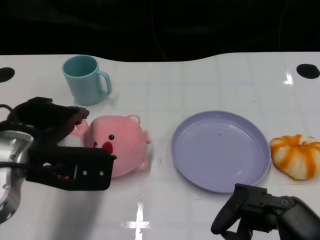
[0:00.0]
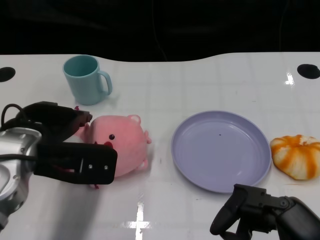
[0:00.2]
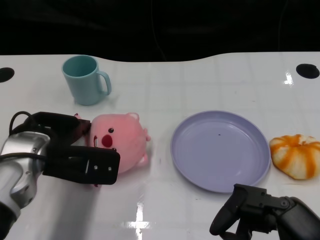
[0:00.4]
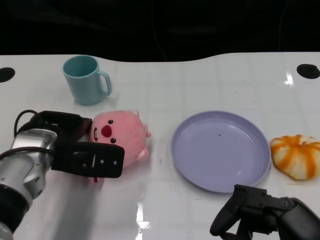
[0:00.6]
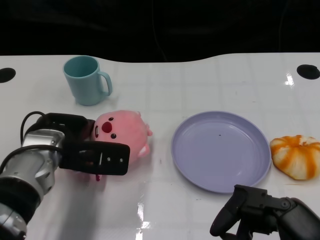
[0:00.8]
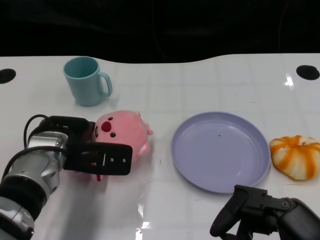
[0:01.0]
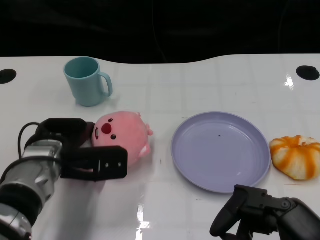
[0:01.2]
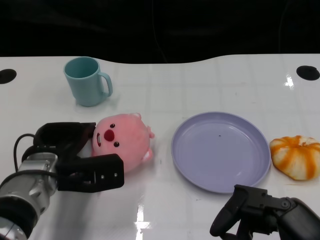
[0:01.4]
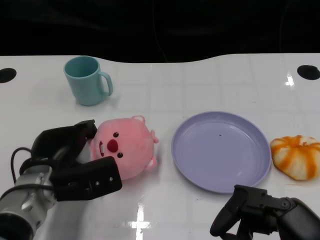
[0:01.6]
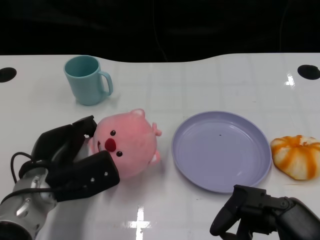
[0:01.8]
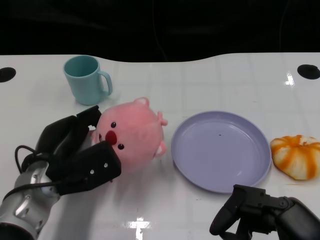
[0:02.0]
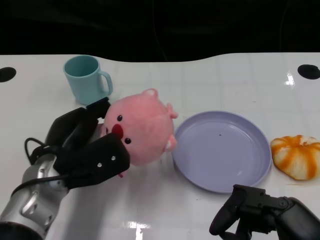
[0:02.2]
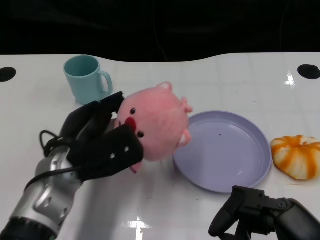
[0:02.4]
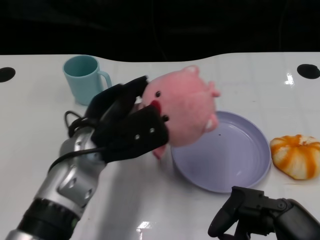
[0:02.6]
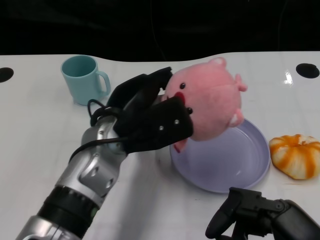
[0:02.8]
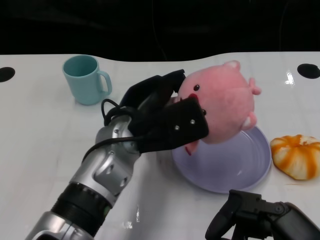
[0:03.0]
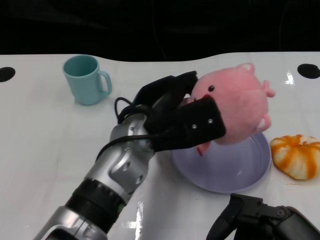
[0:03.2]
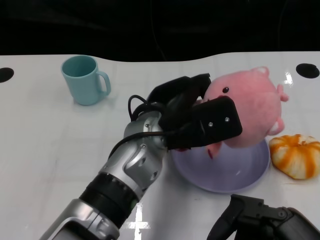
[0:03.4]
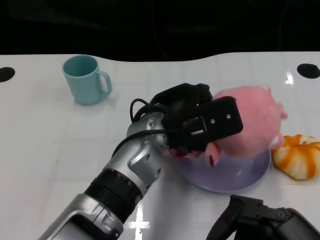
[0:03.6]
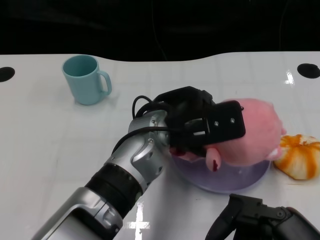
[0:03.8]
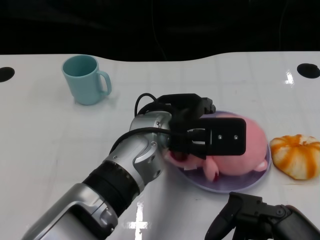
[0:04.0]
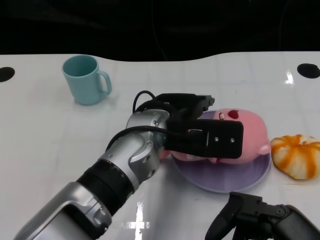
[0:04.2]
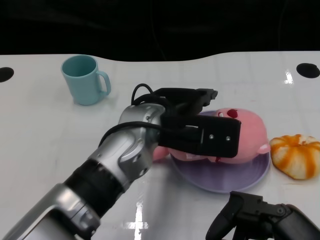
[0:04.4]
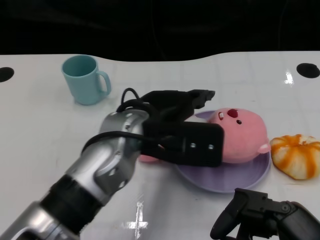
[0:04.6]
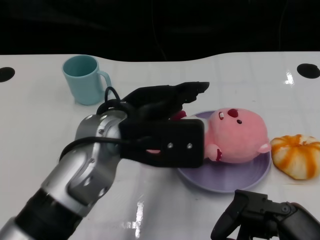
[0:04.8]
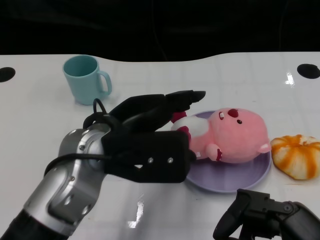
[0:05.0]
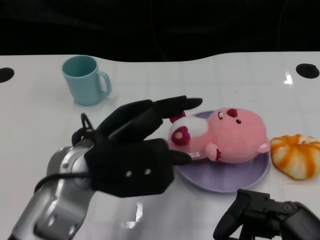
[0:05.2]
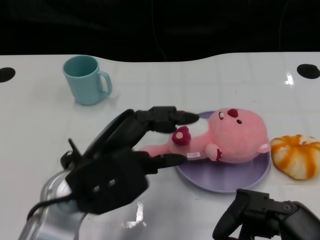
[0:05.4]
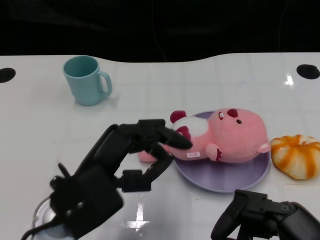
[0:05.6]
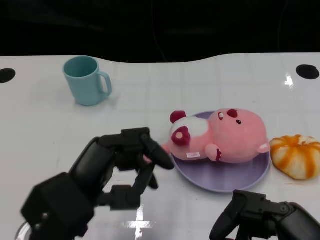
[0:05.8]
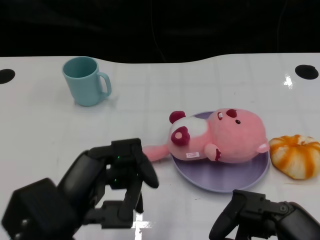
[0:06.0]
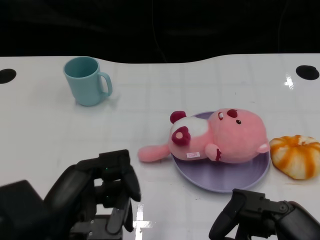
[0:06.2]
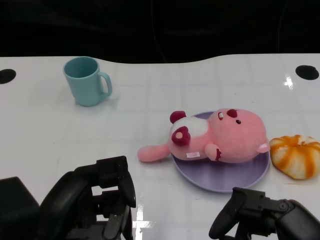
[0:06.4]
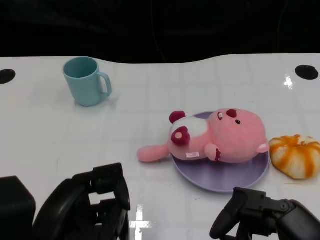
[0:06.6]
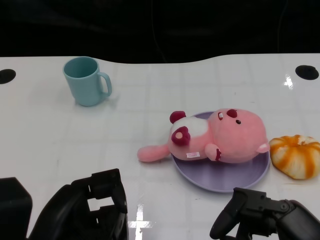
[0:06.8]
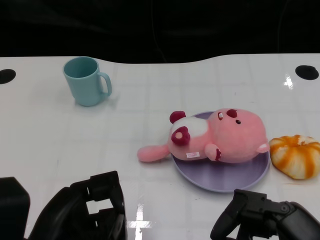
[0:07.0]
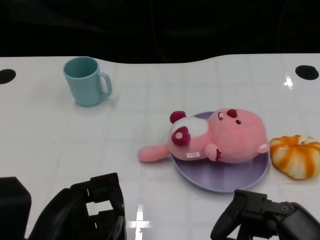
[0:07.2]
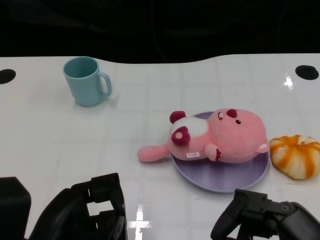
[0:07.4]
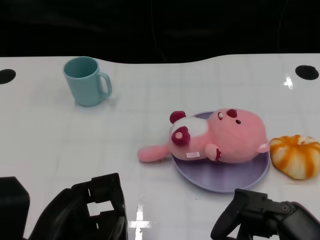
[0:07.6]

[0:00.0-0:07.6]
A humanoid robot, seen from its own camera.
Task of the whole recording: Pick up the doll on one side of the plate and place it into the plate.
Step, 0:00.0 to 0:02.0: Grasp the pink doll with the left gripper.
Step, 0:02.2 to 0:04.4: Place the pink doll into the plate with the left gripper.
0:00.0 to 0:01.6: The left hand shifts some 10 cm downward.
0:01.6 to 0:03.0: The left hand is displaced to the right and upward by some 15 cm.
0:04.6 to 0:06.0: The left hand heads backward and to the left, covering about 15 cm.

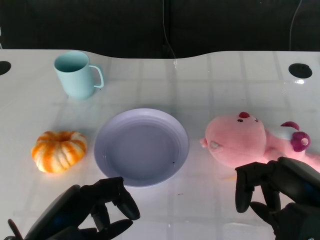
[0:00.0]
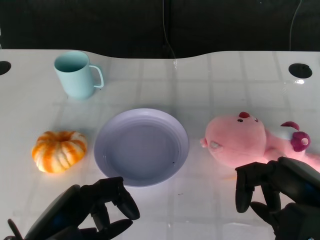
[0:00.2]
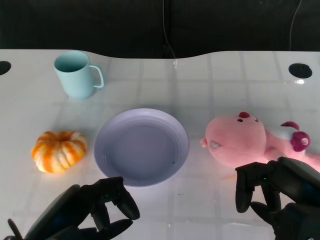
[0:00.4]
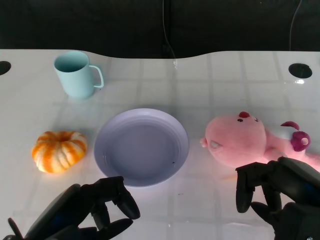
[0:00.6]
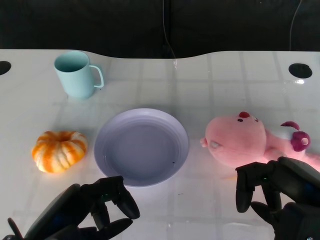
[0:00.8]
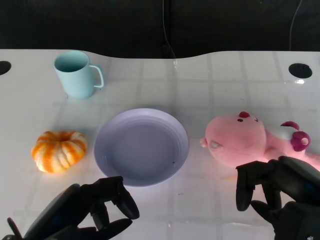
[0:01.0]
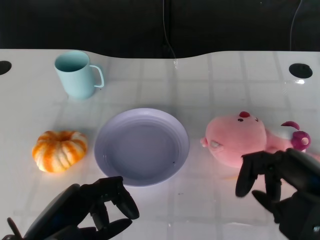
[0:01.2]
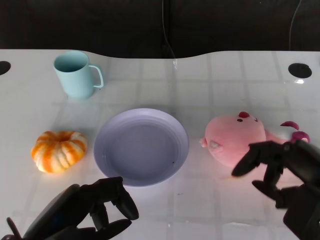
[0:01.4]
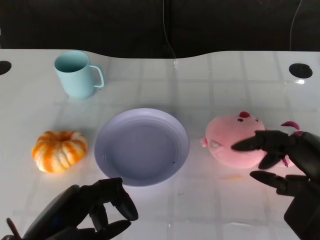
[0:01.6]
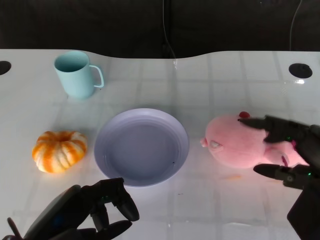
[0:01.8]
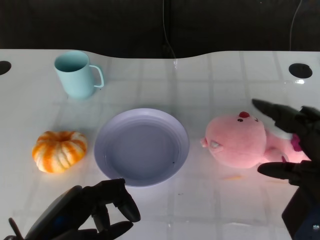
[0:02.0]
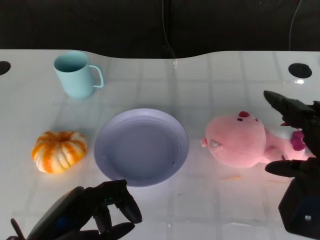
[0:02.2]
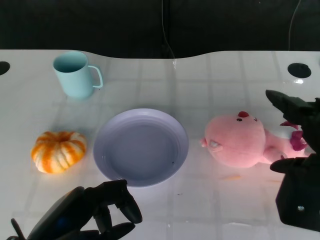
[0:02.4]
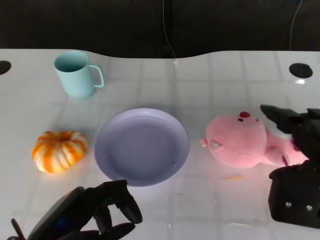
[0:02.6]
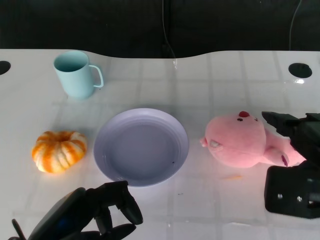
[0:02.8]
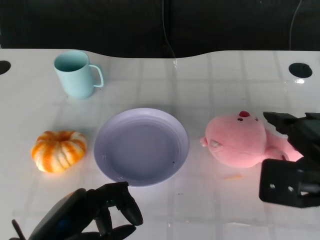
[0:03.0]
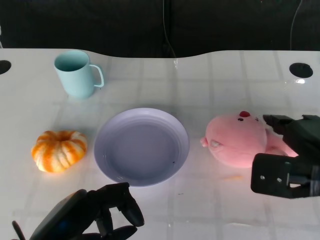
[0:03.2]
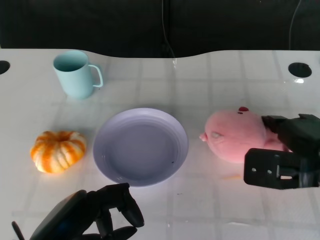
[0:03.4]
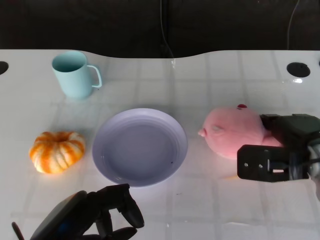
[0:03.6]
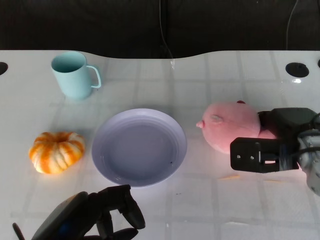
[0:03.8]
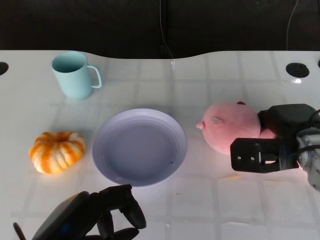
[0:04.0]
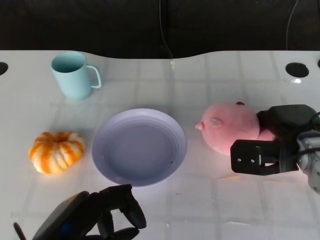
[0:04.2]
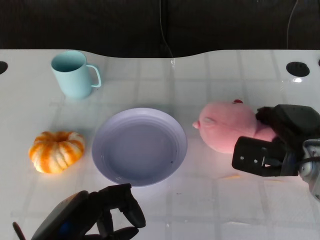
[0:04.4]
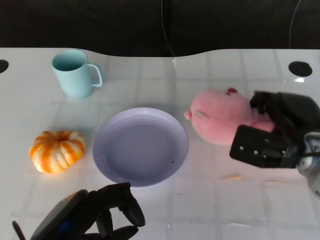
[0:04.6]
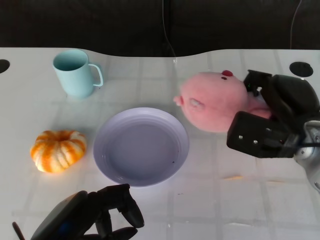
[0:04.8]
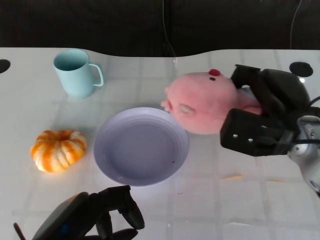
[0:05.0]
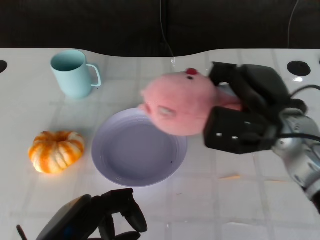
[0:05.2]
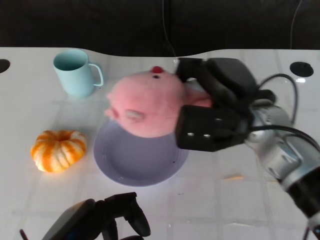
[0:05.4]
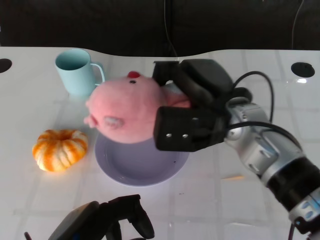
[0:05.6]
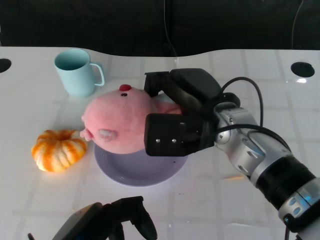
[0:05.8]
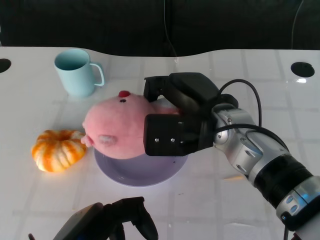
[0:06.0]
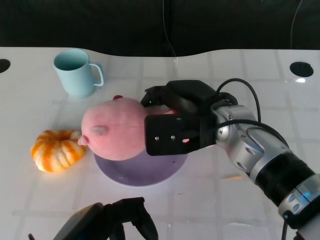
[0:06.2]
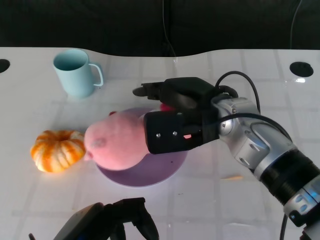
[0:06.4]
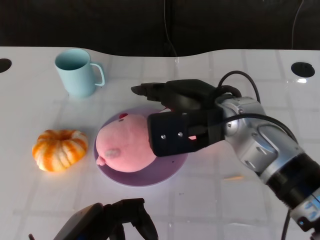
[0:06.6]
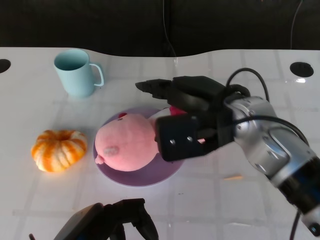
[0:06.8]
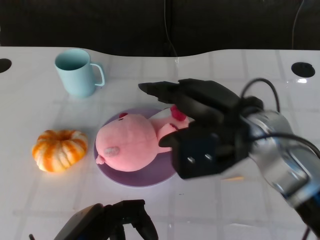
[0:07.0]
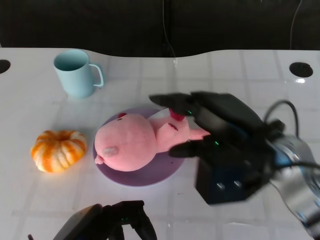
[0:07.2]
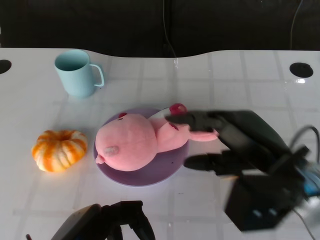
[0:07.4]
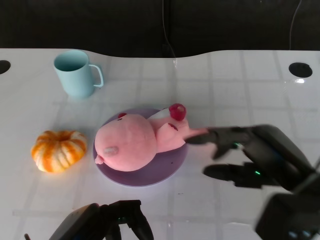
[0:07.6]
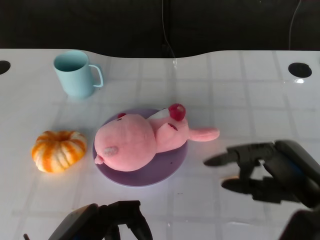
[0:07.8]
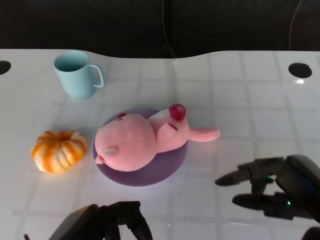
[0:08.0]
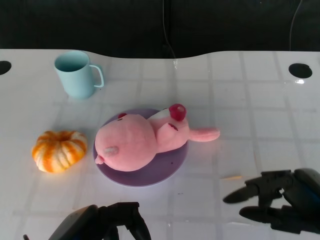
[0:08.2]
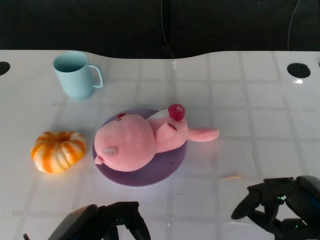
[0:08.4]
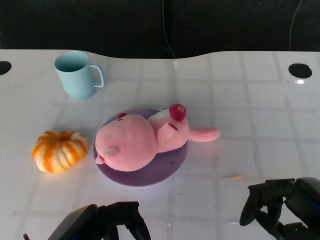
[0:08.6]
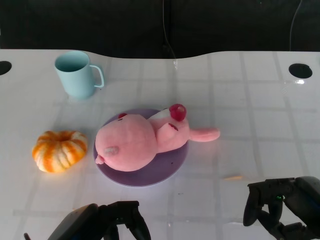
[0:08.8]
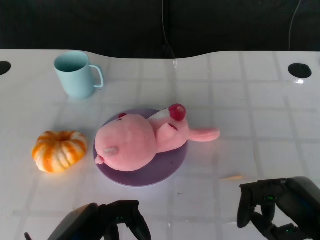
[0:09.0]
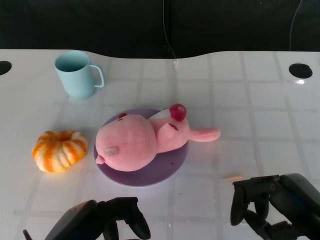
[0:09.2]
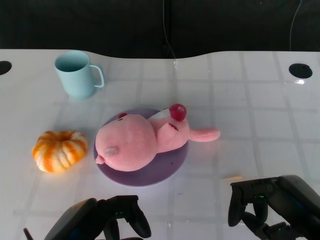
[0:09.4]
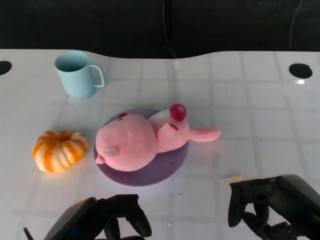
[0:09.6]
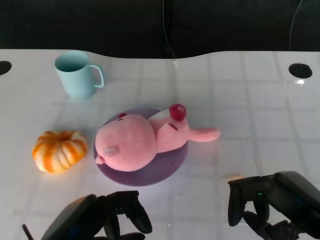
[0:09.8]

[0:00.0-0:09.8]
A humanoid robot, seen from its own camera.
Task of the whole recording: Pick up the doll on the other side of the plate and place it into the plate.
Step, 0:01.0 to 0:04.4: Grasp the pink doll with the right gripper.
Step, 0:04.8 to 0:06.8: Place the pink doll into the plate with the right gripper.
0:02.8 to 0:04.2: The right hand travels forward and downward by approximately 10 cm.
0:04.2 to 0:05.6: The right hand moves to the left and upward, some 15 cm.
0:07.0 to 0:08.4: The right hand heads backward, to the right and downward, covering roughly 20 cm.
0:08.4 to 0:09.8: The hands stay close to where they were, moving slightly.
